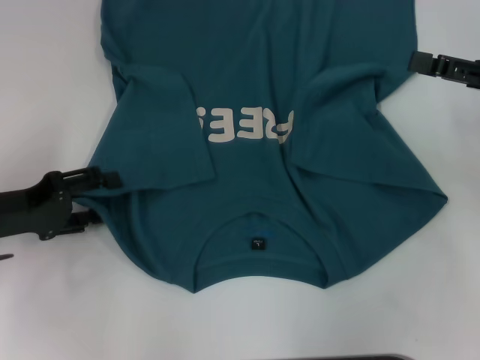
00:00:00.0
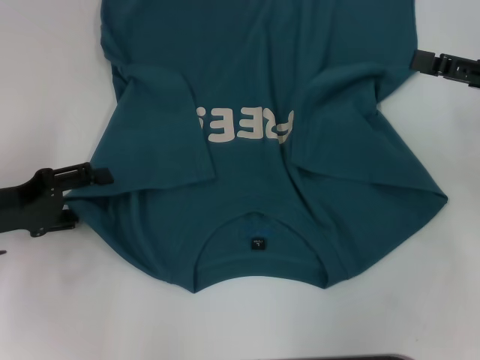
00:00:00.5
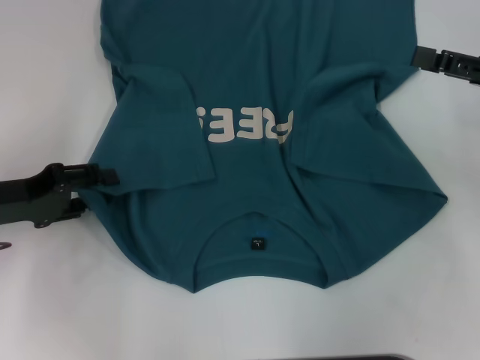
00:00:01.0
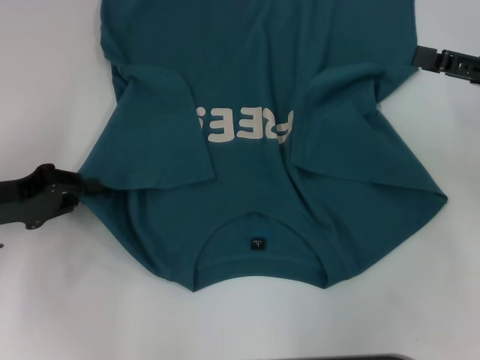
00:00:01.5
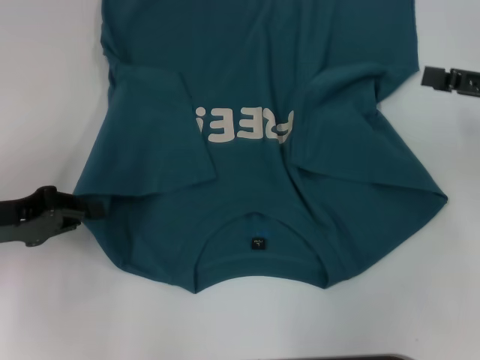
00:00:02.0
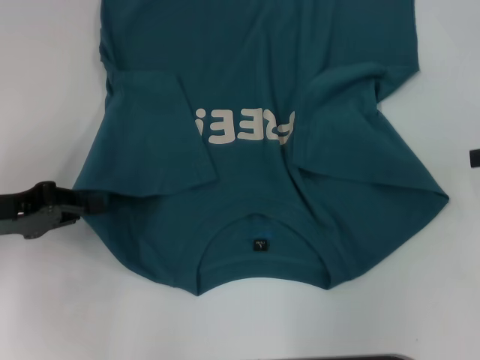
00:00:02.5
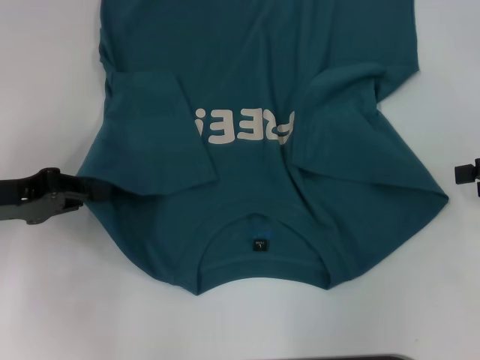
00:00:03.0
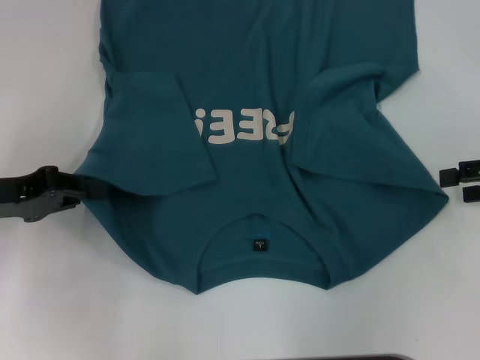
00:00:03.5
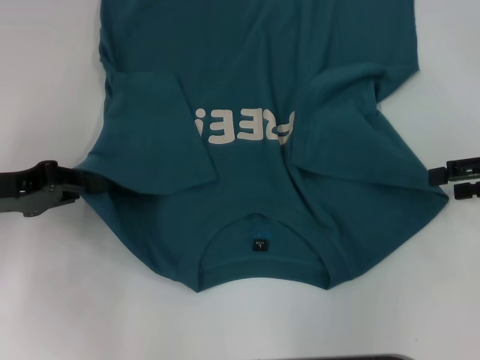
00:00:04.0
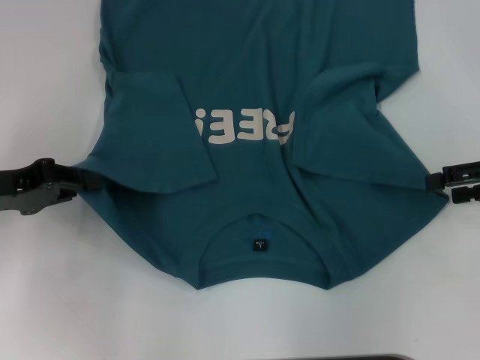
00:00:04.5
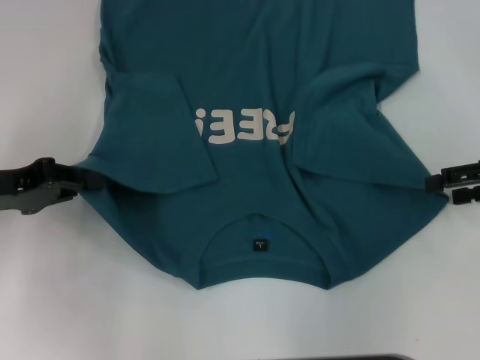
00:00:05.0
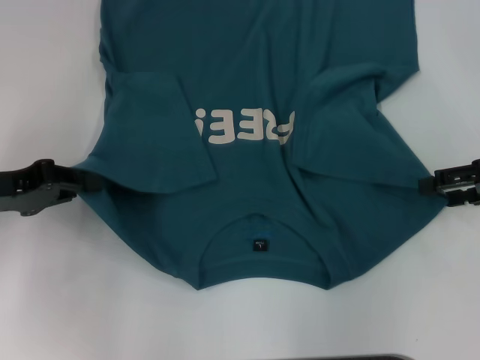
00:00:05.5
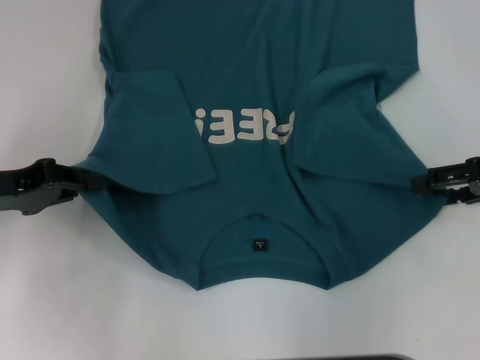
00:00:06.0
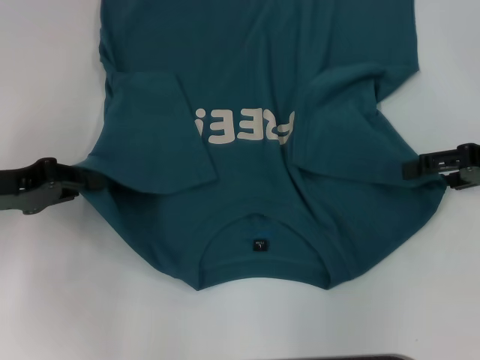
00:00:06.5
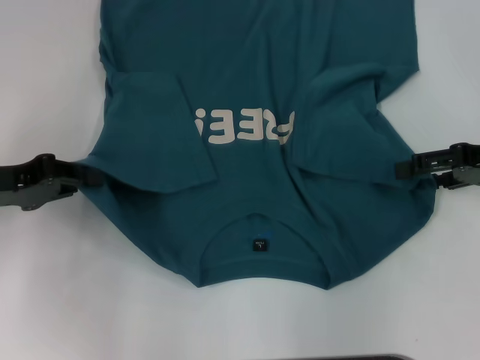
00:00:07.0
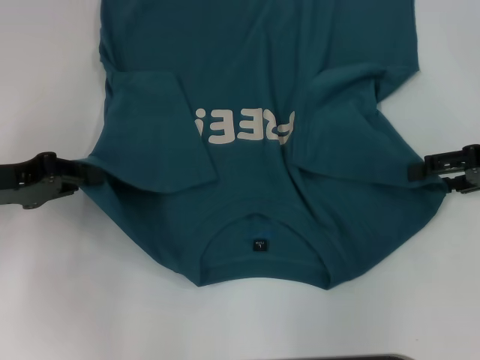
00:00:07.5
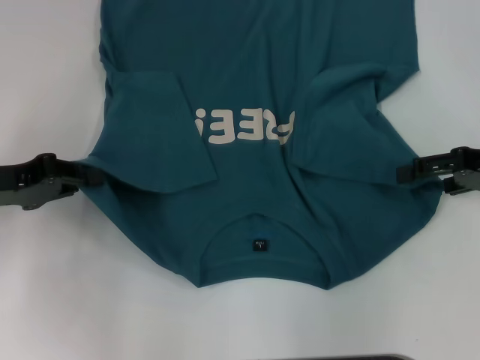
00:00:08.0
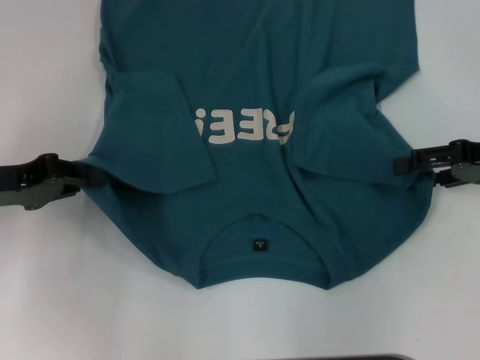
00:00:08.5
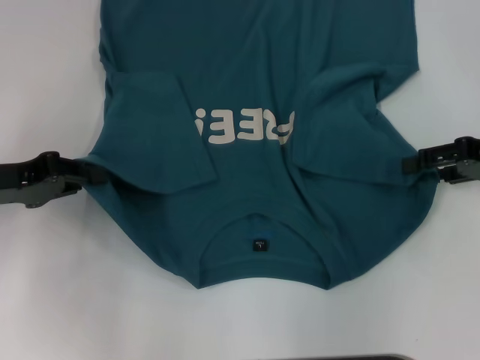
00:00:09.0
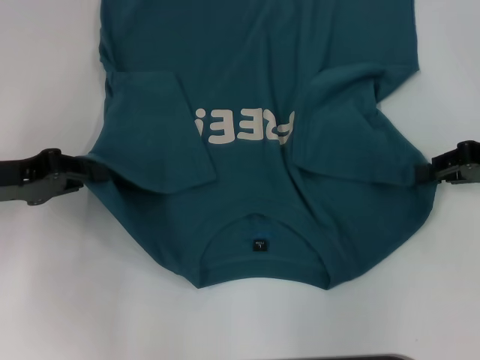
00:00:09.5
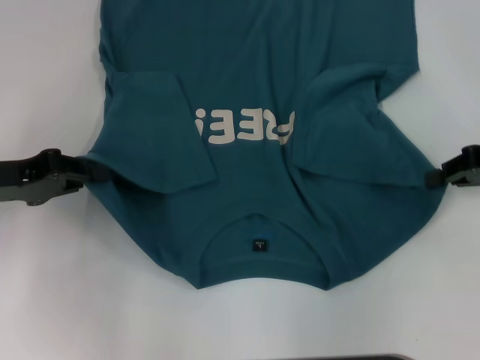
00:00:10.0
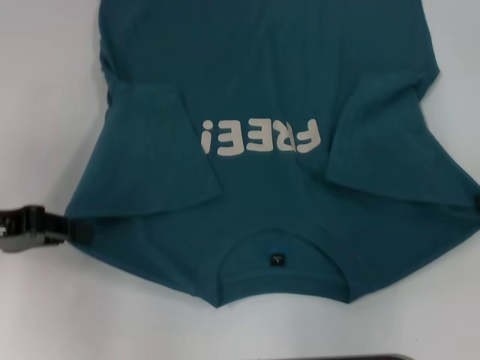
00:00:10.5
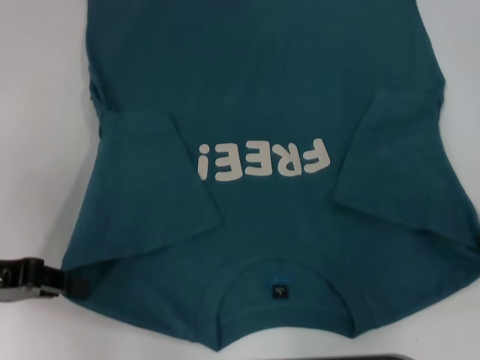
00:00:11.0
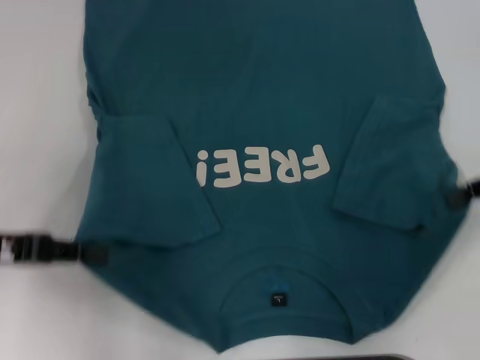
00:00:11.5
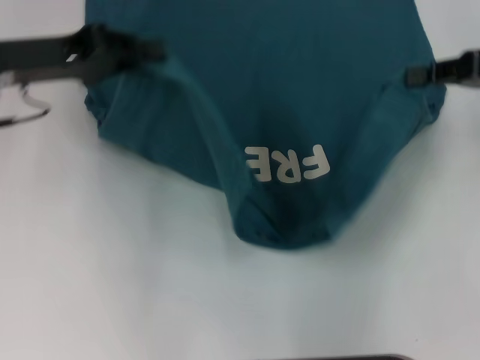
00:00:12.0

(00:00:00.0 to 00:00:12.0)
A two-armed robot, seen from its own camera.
Step, 00:00:00.0 - 00:00:03.5: Grab the bottom left corner with your left hand.
Step, 00:00:04.0 - 00:00:10.0: Grab the bottom right corner with your right hand.
00:00:00.0 - 00:00:02.0: The left gripper closes its fingers.
00:00:04.0 - 00:00:08.0: The grippers make only small movements.
00:00:08.0 - 00:00:10.0: The right gripper closes.
00:00:10.0 - 00:00:12.0: The right gripper shifts about 5 cm upward; the left gripper is displaced forward, upward and to the right by approximately 10 cm.

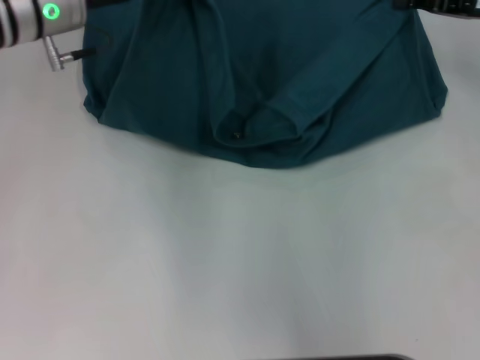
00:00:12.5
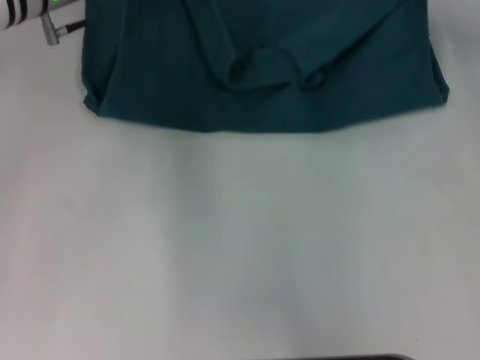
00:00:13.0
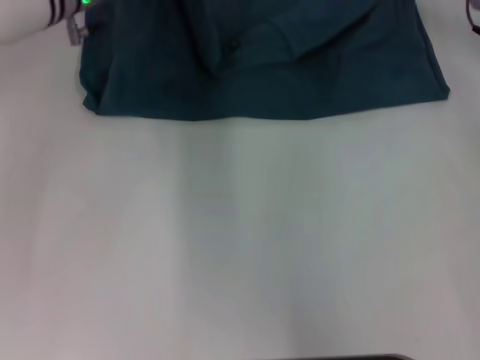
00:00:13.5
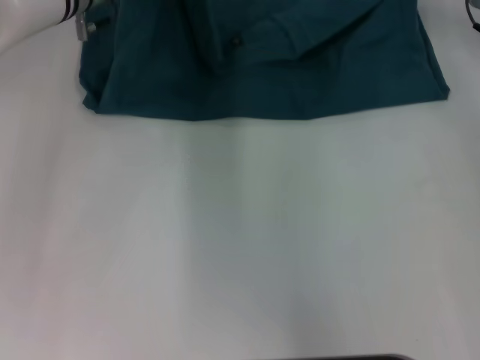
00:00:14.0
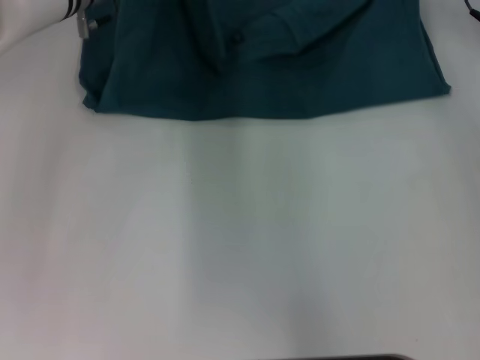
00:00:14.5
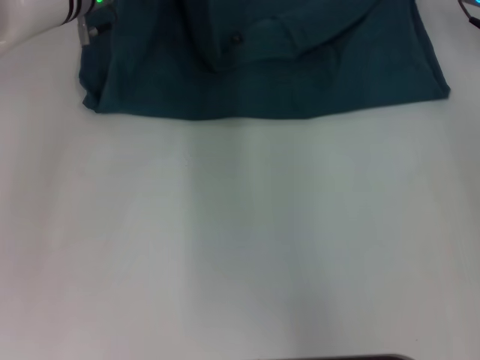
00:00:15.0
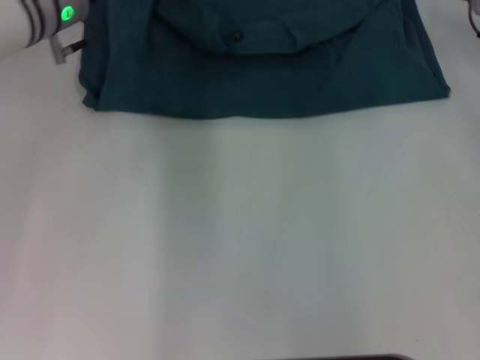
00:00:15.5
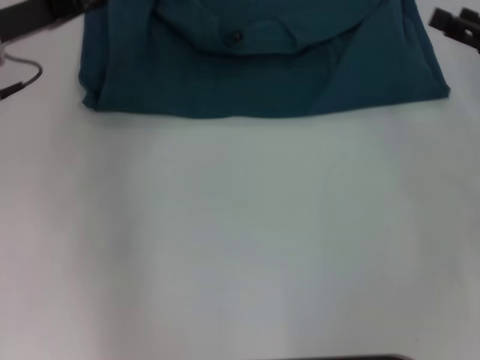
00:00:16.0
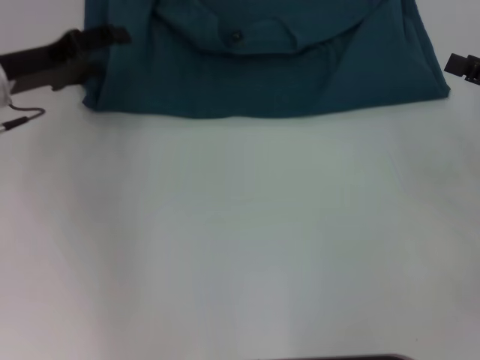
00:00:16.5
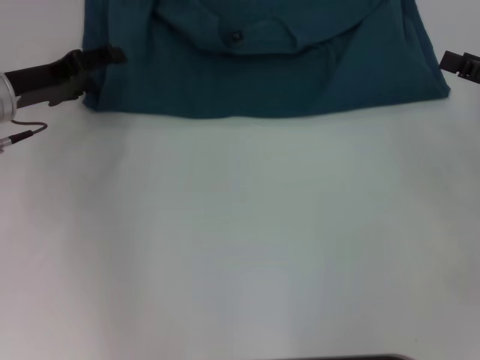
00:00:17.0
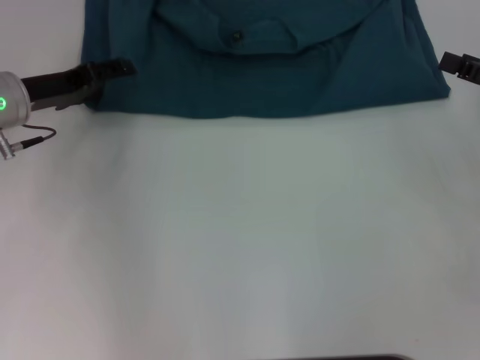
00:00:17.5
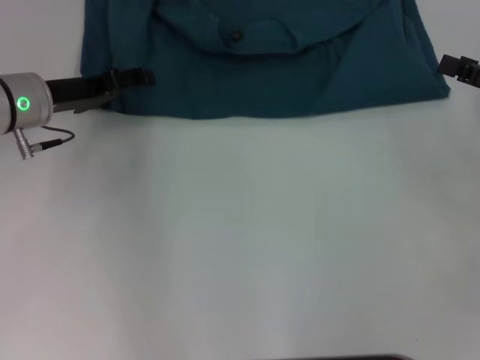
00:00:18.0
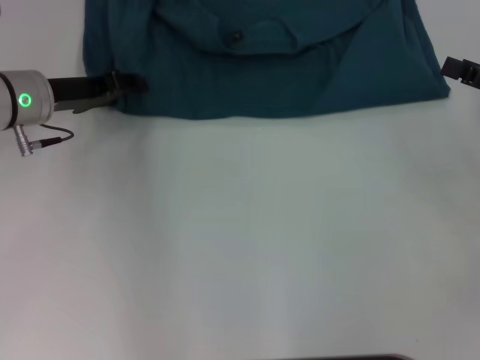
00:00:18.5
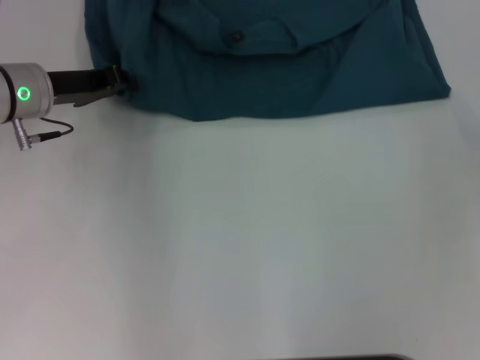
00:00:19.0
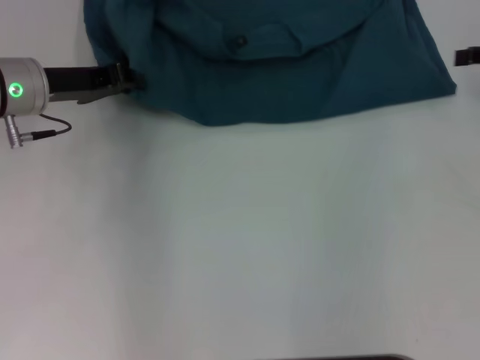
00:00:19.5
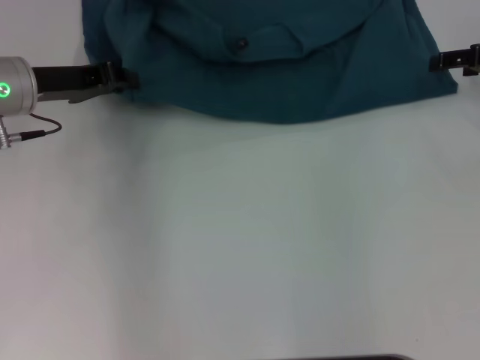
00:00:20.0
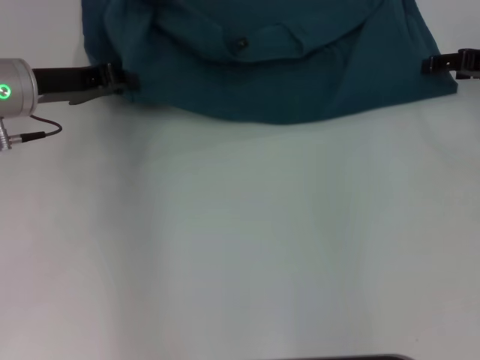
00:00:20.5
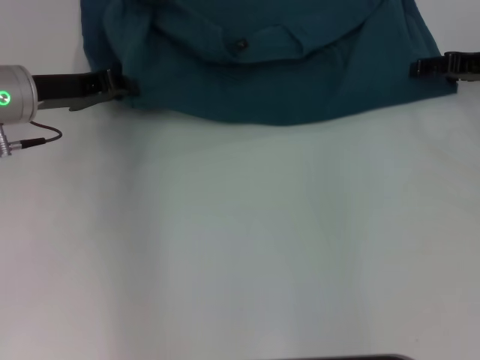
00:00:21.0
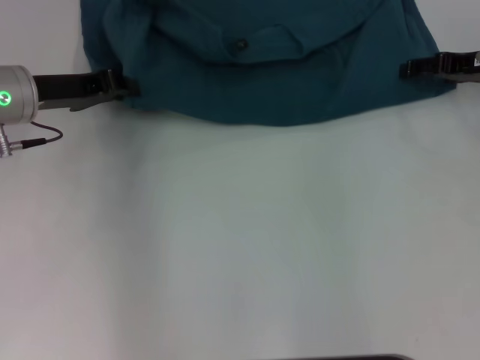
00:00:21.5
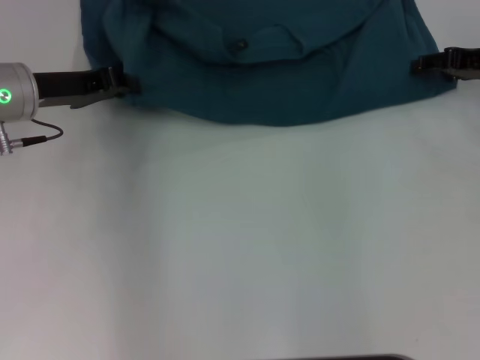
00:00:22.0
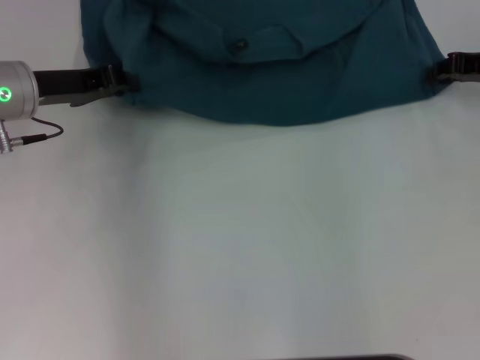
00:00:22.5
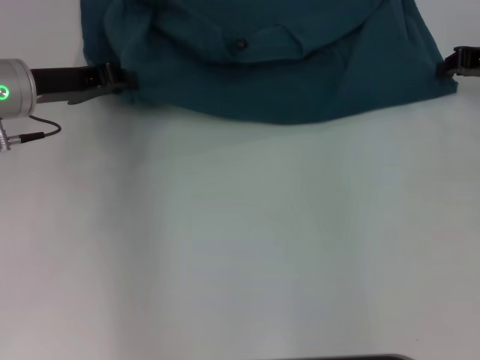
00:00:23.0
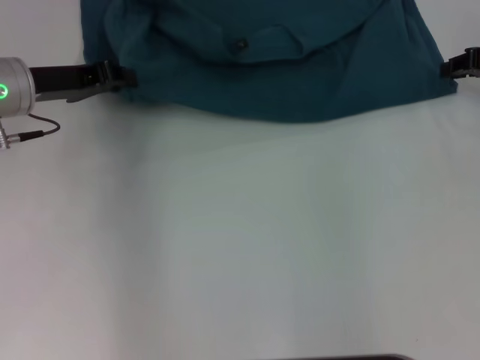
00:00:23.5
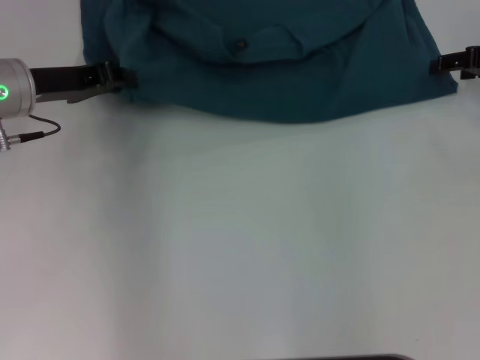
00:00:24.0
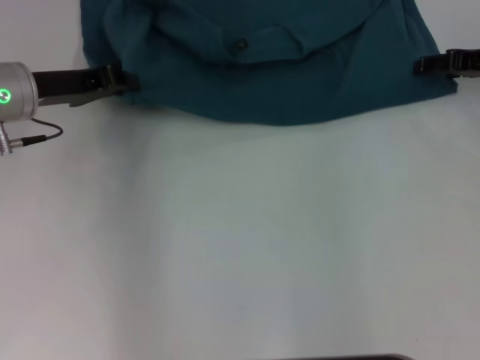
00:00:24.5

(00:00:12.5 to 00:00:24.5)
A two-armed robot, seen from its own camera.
Step, 00:00:12.5 - 00:00:15.0: Fold the clothes to the left.
Step, 00:00:12.5 - 00:00:15.0: Fold the clothes to the right.
00:00:12.5 - 00:00:14.5: The right gripper is displaced forward by some 5 cm; the left gripper shifts by about 5 cm.
00:00:14.5 - 00:00:16.5: The right gripper moves backward and to the right, about 20 cm, and opens, while the left gripper moves to the left and backward, approximately 15 cm, and opens up.
00:00:16.5 - 00:00:18.5: The grippers stay close to where they were, moving slightly.
00:00:18.5 - 00:00:20.5: The left gripper closes up, while the right gripper moves forward, some 10 cm.
00:00:20.5 - 00:00:22.5: The right gripper closes.

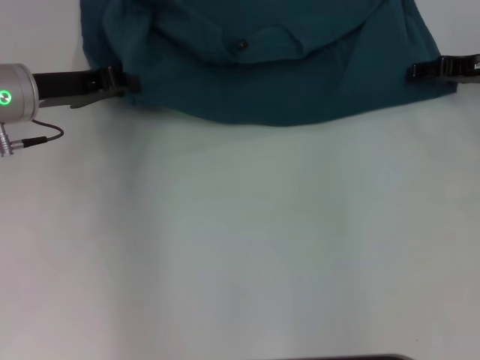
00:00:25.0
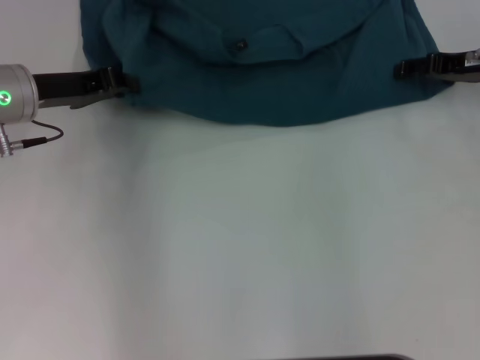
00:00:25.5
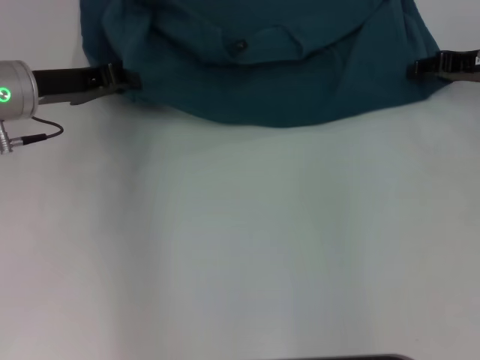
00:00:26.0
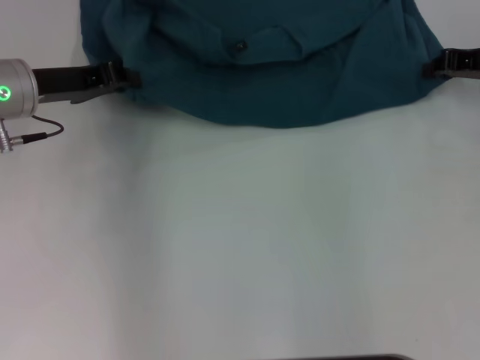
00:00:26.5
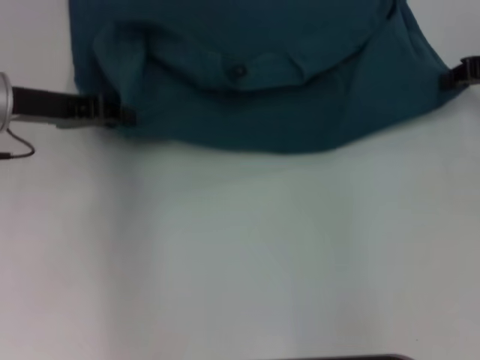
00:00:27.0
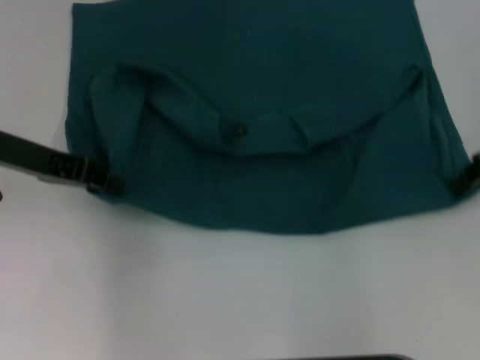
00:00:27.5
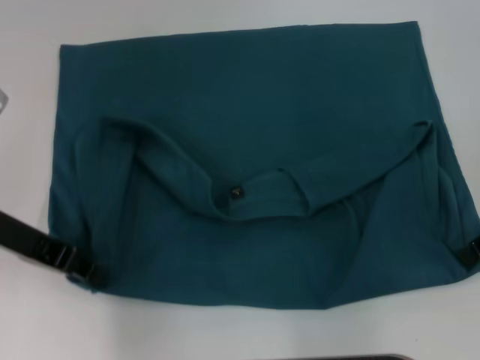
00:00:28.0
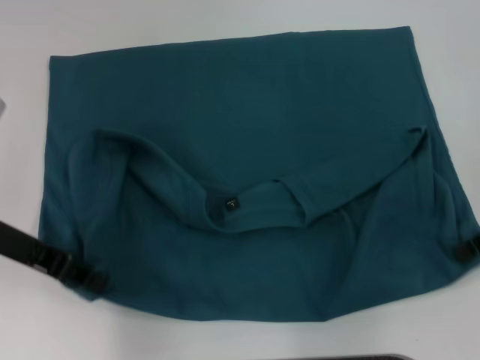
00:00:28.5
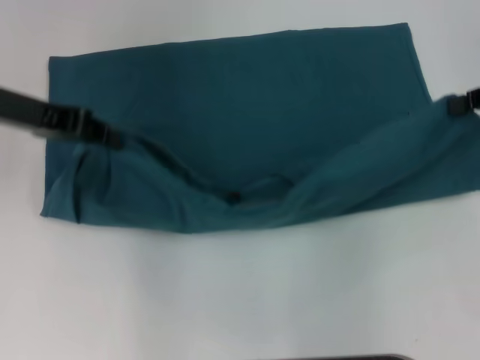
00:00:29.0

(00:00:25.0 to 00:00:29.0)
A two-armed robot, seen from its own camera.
Step, 00:00:25.0 - 00:00:28.0: Pull the clothes with your left hand.
Step, 00:00:25.0 - 00:00:28.0: Pull the clothes with your right hand.
00:00:25.0 - 00:00:27.0: The right gripper closes its fingers.
00:00:27.0 - 00:00:29.0: The left gripper shifts some 5 cm upward, and travels backward and back again, roughly 10 cm each way, while the right gripper travels backward by some 5 cm.
